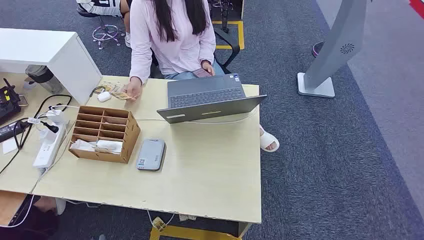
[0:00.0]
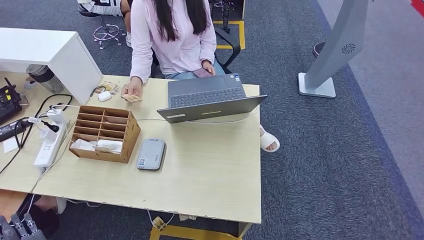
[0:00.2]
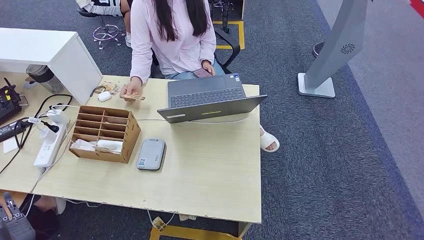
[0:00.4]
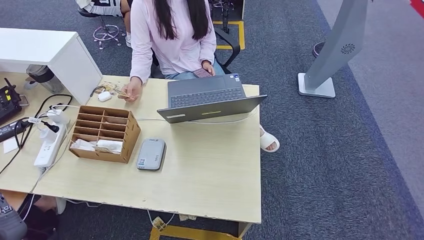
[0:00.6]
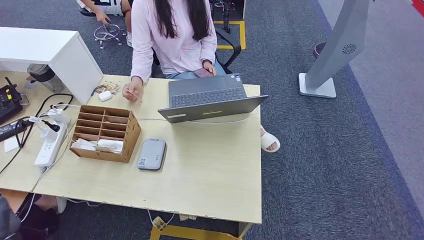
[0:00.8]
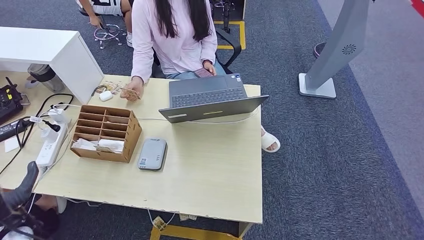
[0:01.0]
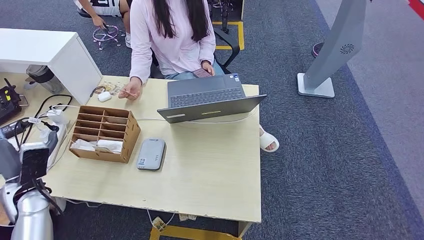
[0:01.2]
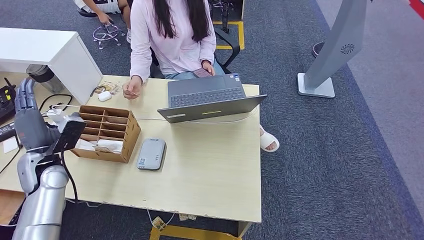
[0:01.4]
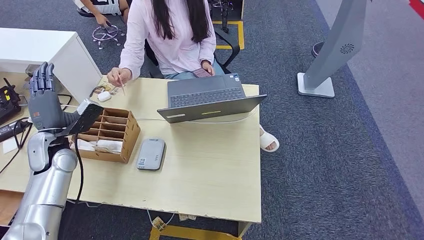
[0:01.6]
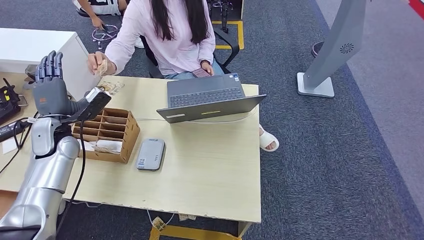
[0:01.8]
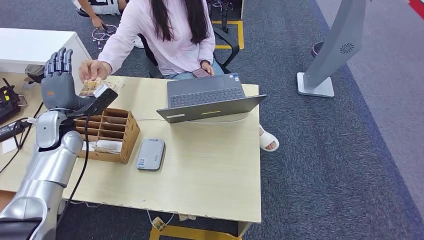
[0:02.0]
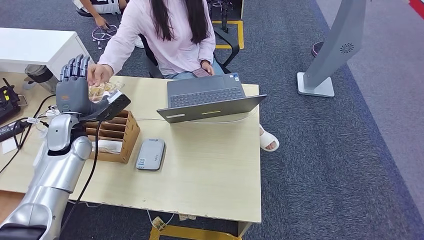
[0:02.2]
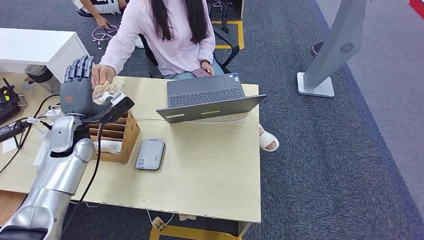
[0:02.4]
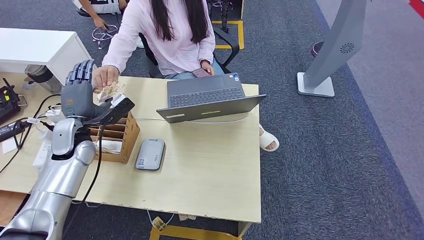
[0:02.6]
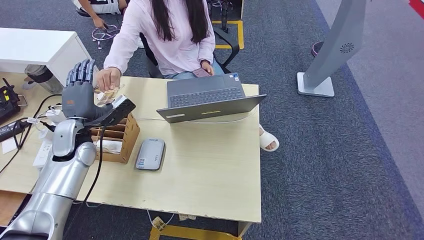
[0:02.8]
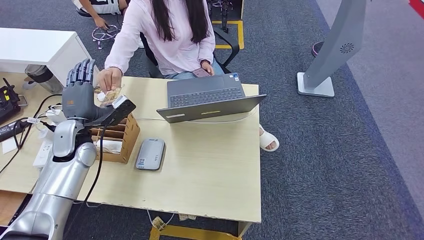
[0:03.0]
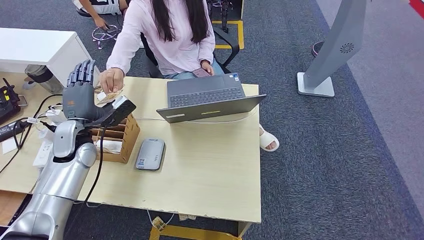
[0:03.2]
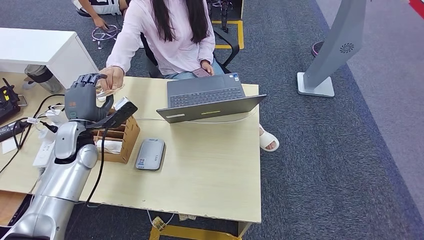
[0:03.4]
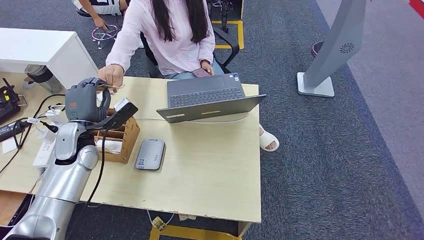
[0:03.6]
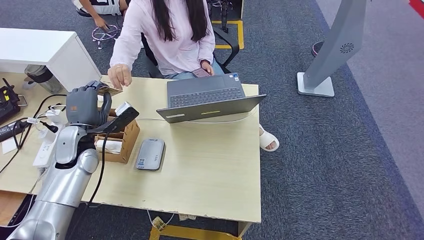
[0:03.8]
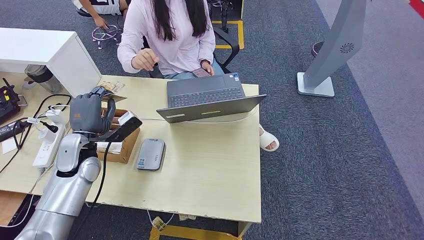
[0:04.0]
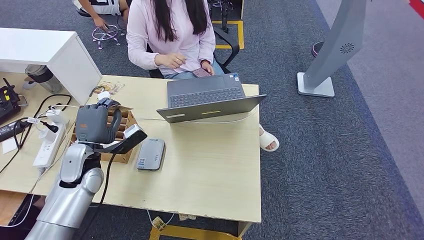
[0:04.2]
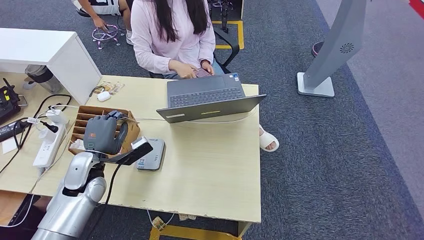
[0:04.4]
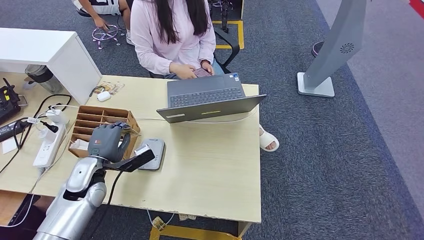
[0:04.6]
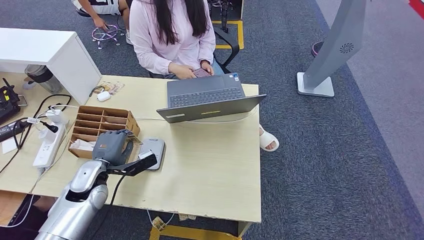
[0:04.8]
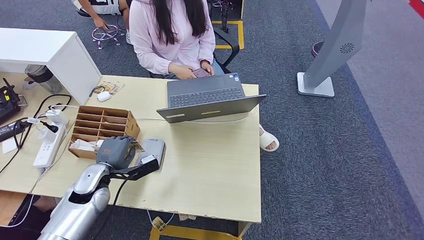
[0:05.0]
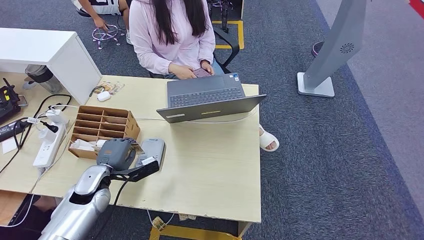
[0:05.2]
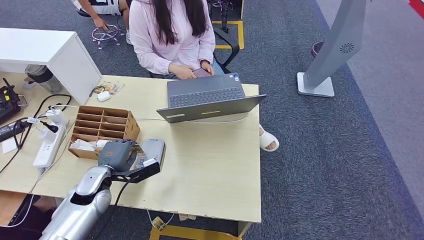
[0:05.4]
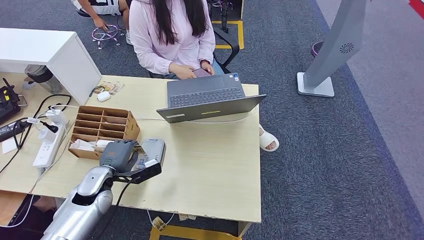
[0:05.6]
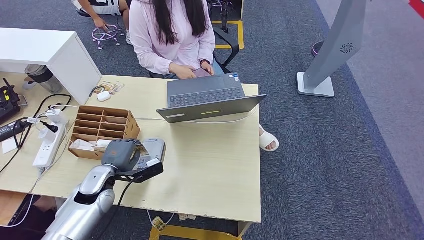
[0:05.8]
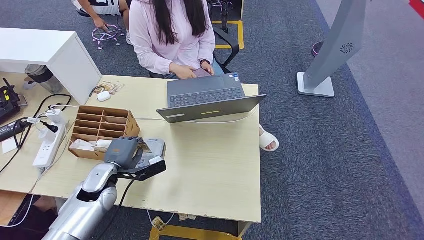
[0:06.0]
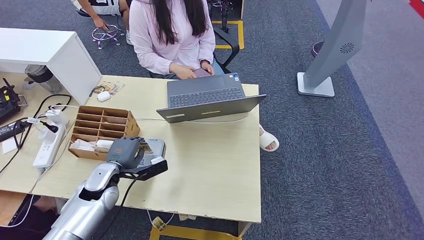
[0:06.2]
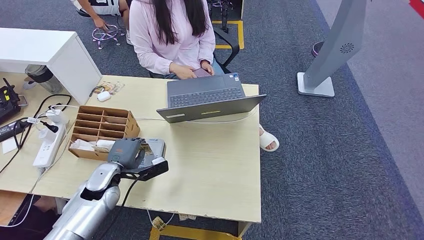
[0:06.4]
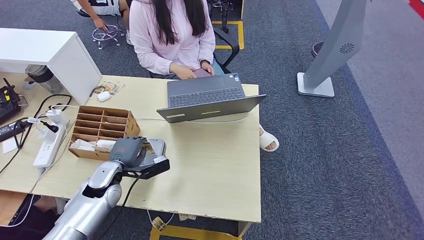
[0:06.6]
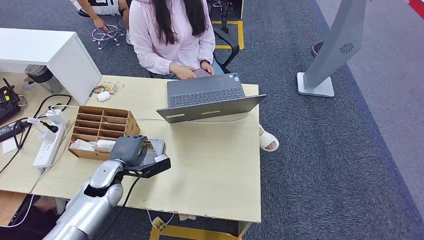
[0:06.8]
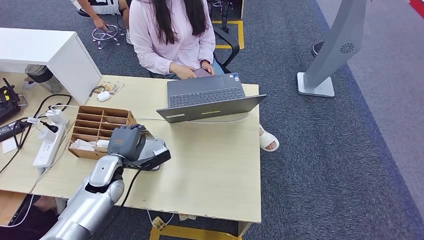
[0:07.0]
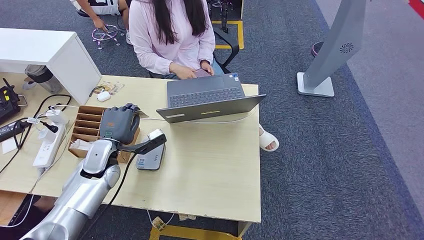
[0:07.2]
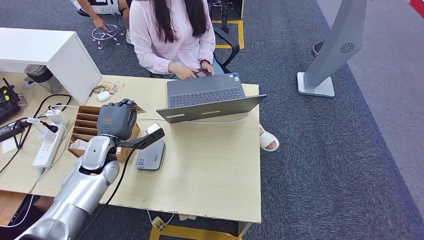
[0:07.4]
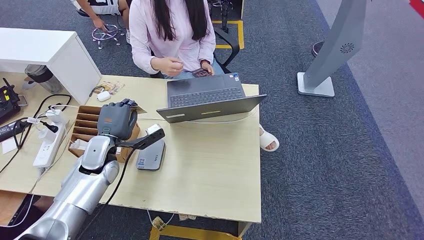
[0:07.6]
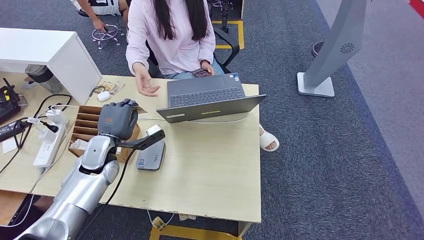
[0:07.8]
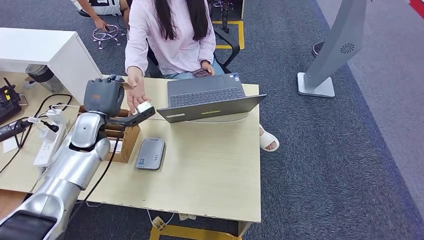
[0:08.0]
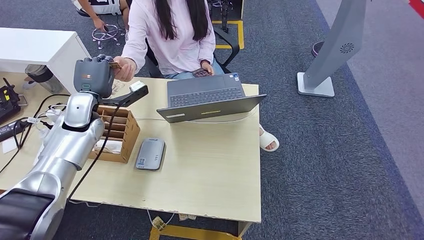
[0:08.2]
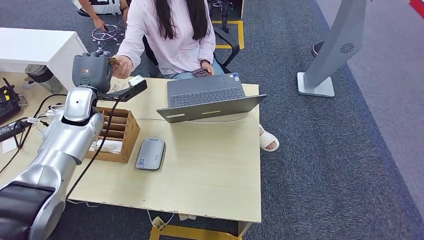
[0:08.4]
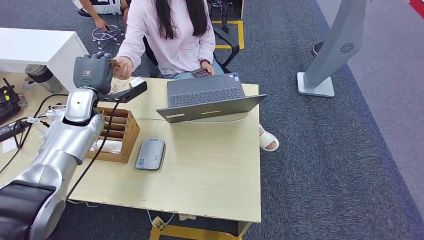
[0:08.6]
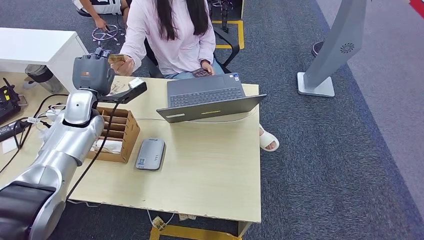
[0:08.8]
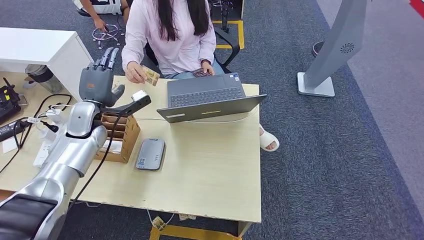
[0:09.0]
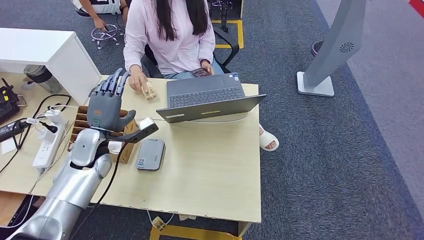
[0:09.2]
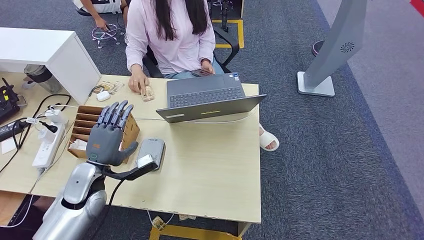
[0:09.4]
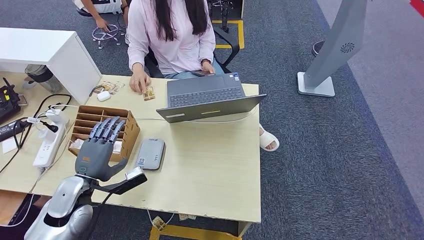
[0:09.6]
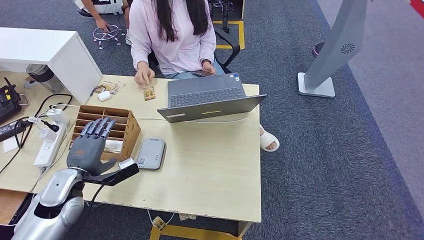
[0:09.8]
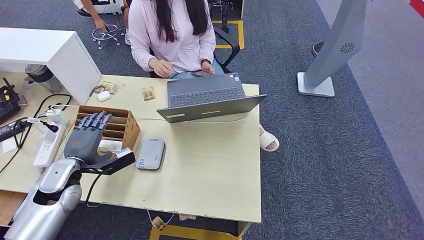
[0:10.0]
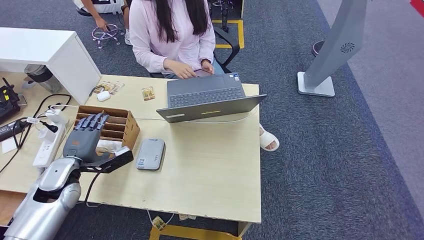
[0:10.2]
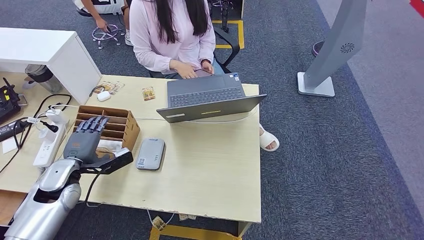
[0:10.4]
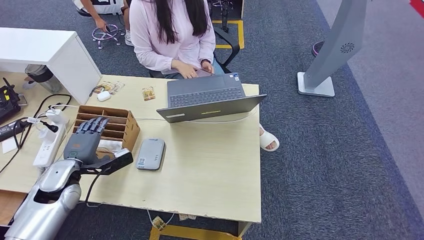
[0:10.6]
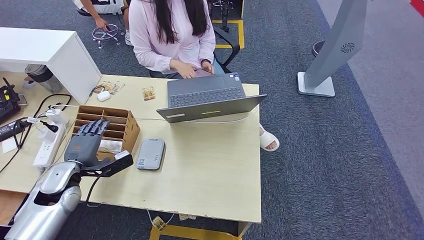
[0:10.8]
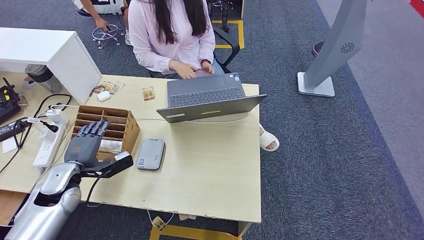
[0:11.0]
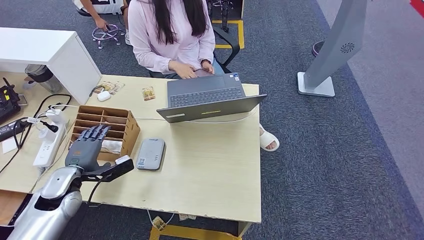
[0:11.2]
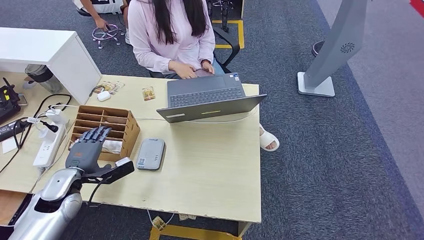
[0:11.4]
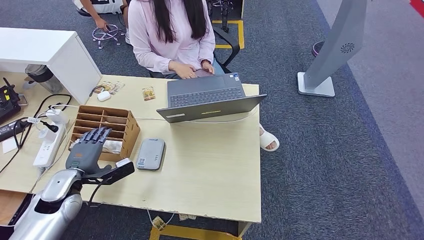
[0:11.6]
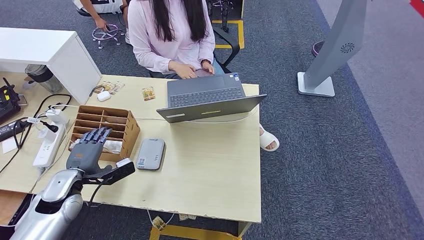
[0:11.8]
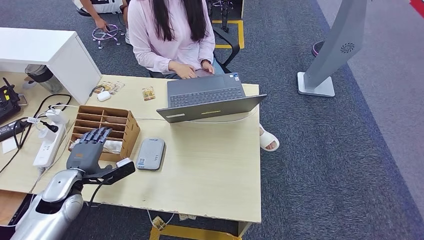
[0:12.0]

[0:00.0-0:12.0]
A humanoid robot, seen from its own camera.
Step, 0:00.0 to 0:04.0: Take the ID card from the person's hand.
Step, 0:04.2 to 0:06.6: Place the ID card on the card reader.
Step, 0:06.8 to 0:08.8: Hand the ID card to the person.
0:01.6 to 0:03.0: The left hand moves to the right, approximately 5 cm.
0:03.0 to 0:04.4: The left hand is displaced backward and downward by some 10 cm.
0:04.4 to 0:06.0: The left hand travels downward by some 5 cm.
0:06.0 to 0:07.6: The left hand travels upward and forward by roughly 10 cm.
0:07.6 to 0:09.0: The left hand travels upward and forward by some 10 cm.
0:09.0 to 0:10.4: The left hand travels backward and downward by about 15 cm.
0:10.4 to 0:12.0: The hands move only a little.

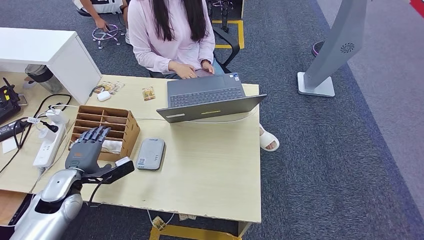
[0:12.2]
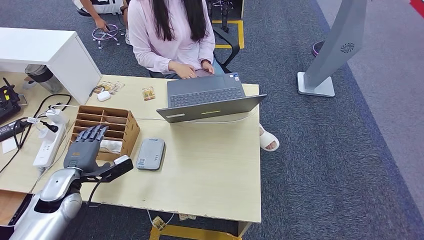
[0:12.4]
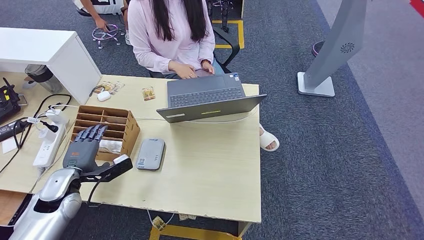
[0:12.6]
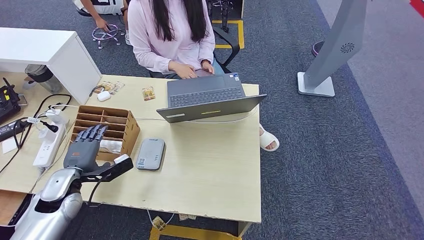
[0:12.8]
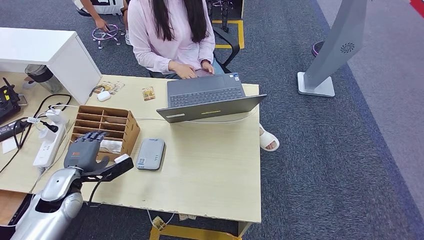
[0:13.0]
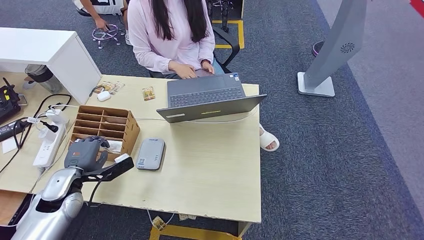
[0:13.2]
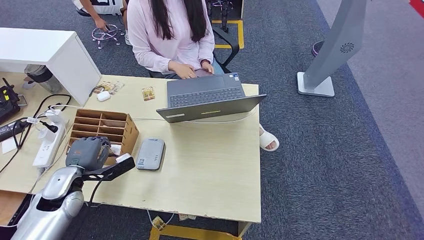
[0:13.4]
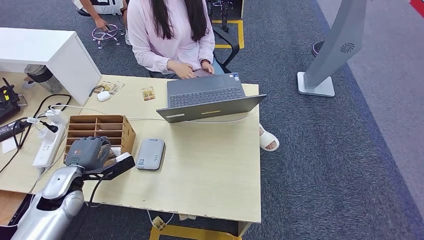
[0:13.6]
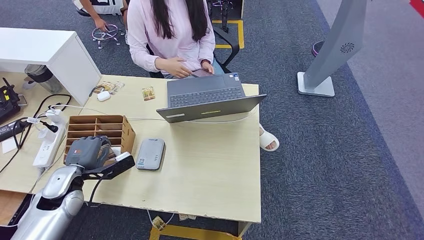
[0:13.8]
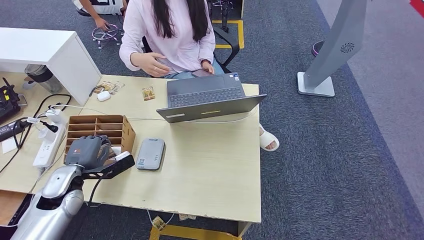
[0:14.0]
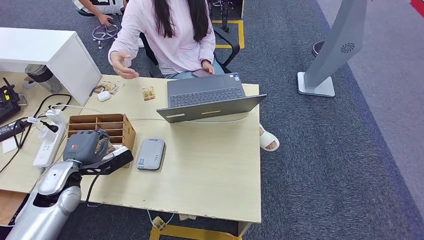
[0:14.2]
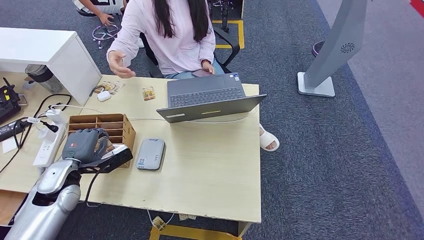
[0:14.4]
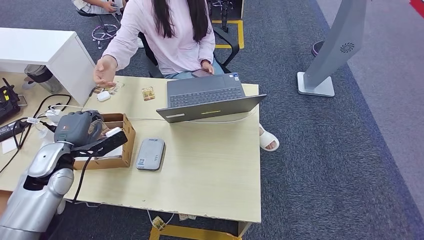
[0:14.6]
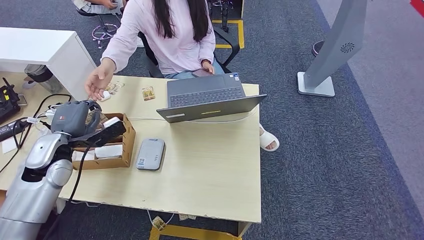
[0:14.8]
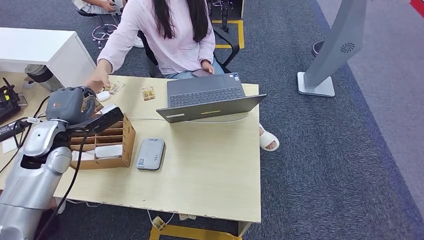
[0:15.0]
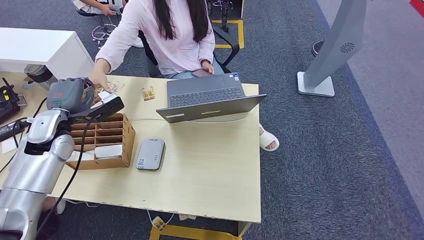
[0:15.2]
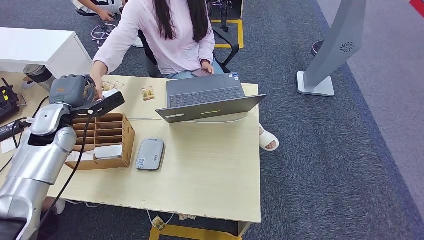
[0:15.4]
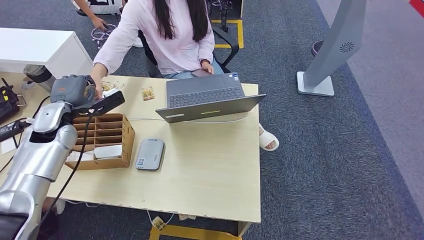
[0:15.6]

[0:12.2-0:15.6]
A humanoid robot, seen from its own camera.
Step, 0:12.2 to 0:14.2: Pick up the room key from the key card box.
Step, 0:14.4 to 0:15.6: Hand the room key to the person.
0:12.2 to 0:13.8: The two hands keep their place.
0:13.8 to 0:15.6: The left hand moves forward and upward, approximately 15 cm.
